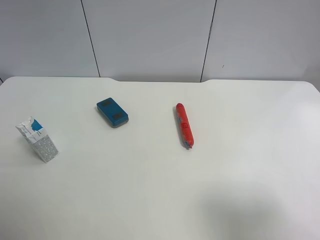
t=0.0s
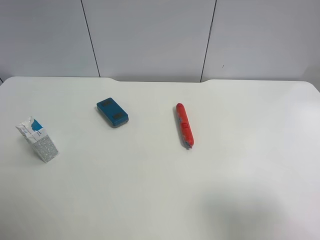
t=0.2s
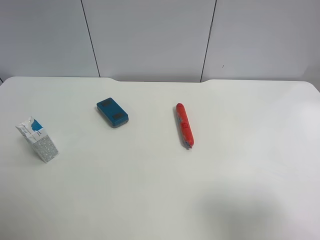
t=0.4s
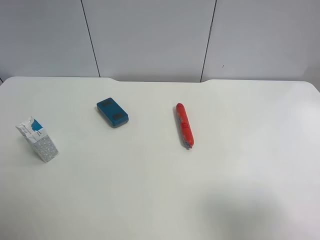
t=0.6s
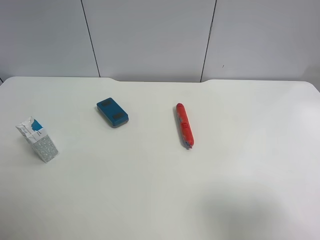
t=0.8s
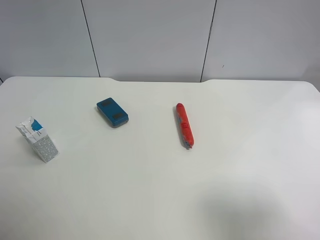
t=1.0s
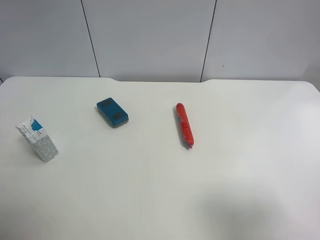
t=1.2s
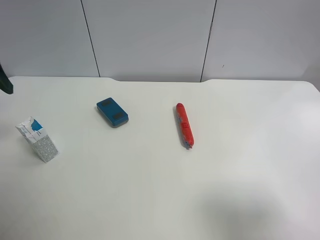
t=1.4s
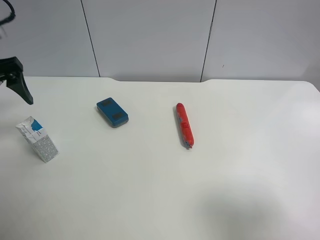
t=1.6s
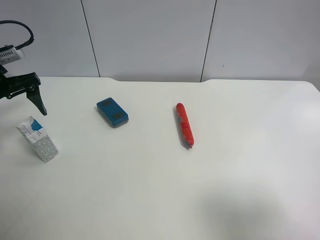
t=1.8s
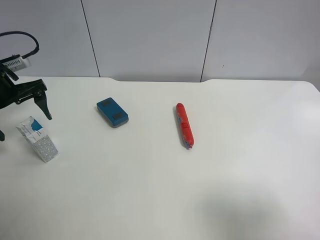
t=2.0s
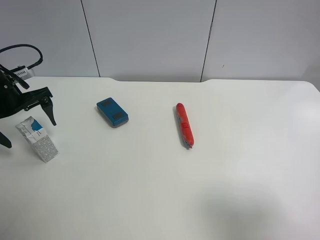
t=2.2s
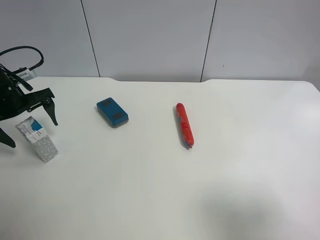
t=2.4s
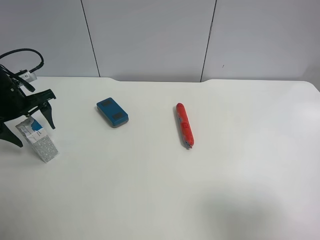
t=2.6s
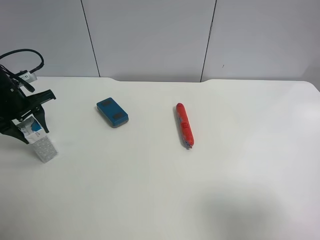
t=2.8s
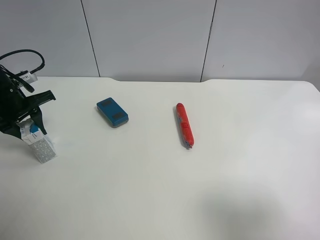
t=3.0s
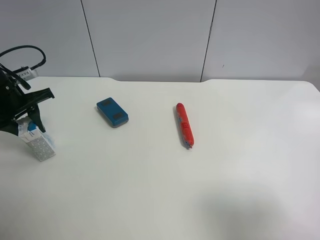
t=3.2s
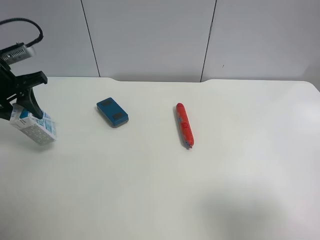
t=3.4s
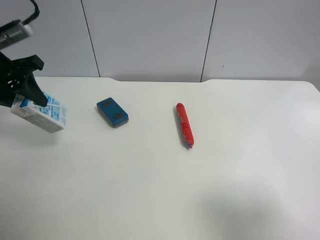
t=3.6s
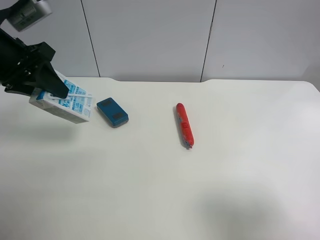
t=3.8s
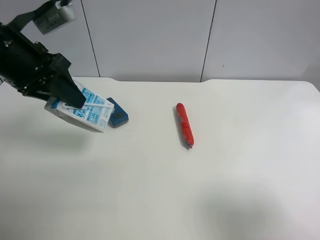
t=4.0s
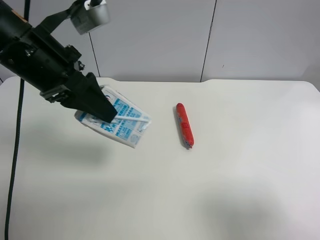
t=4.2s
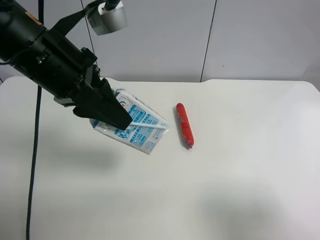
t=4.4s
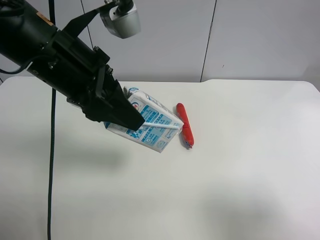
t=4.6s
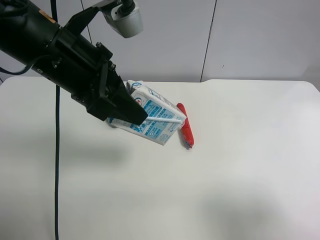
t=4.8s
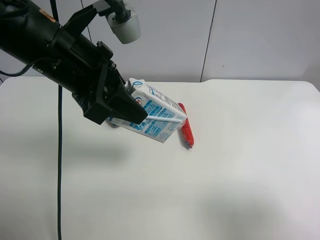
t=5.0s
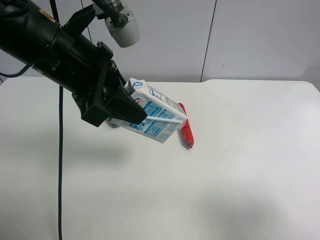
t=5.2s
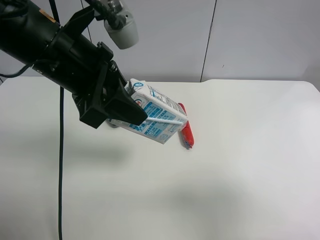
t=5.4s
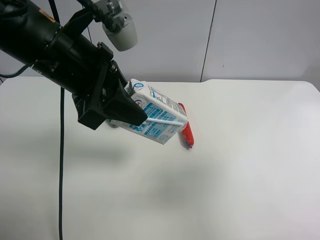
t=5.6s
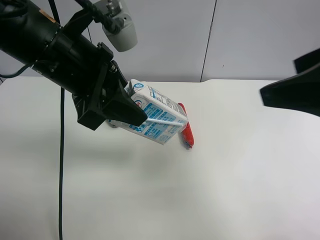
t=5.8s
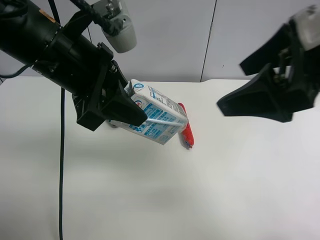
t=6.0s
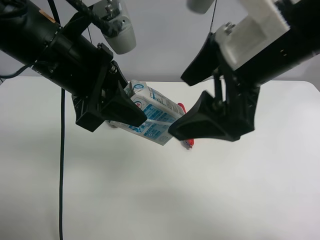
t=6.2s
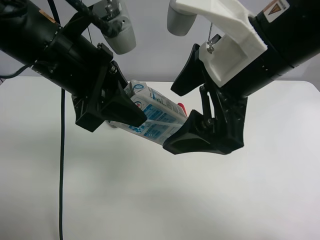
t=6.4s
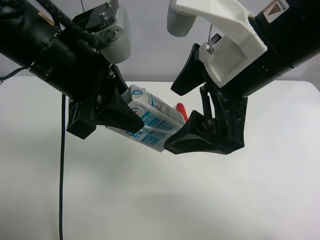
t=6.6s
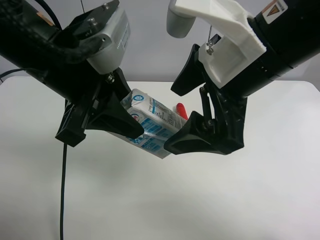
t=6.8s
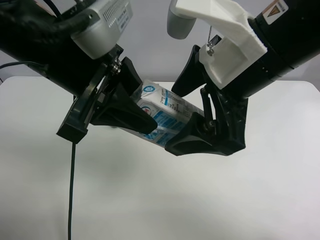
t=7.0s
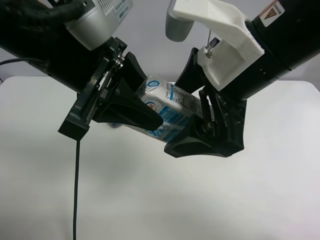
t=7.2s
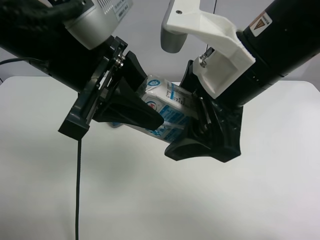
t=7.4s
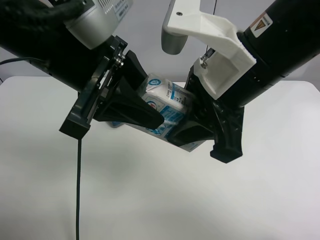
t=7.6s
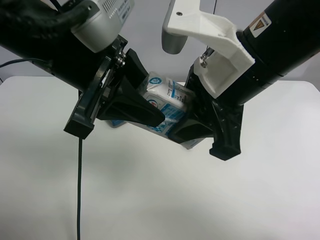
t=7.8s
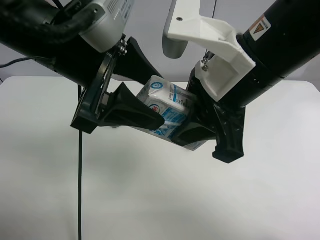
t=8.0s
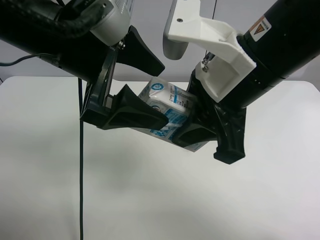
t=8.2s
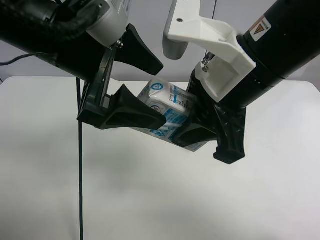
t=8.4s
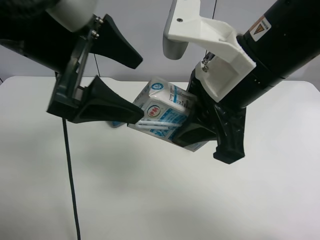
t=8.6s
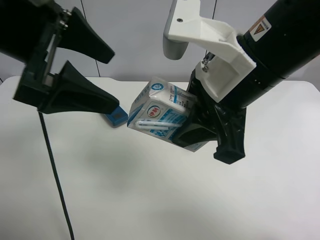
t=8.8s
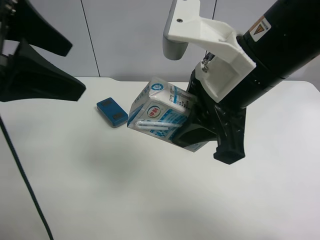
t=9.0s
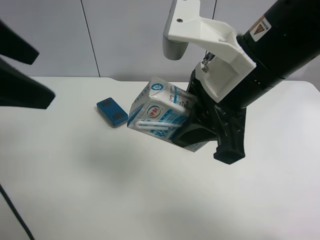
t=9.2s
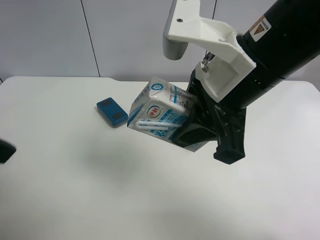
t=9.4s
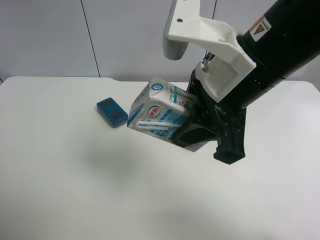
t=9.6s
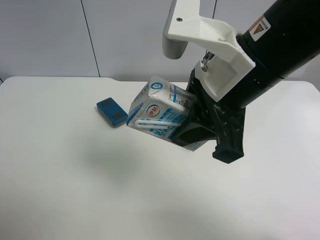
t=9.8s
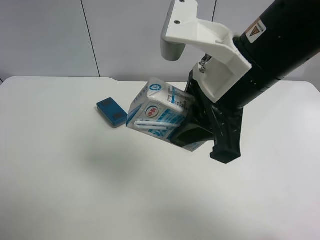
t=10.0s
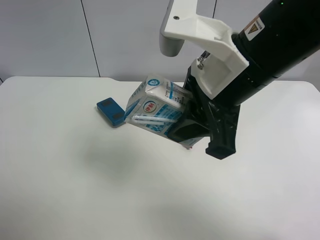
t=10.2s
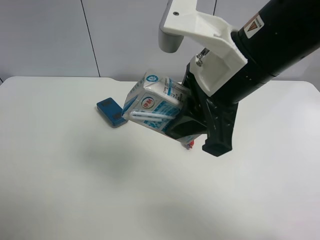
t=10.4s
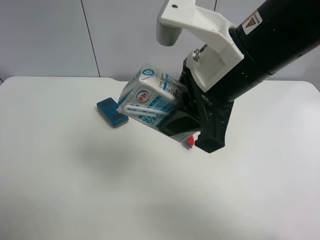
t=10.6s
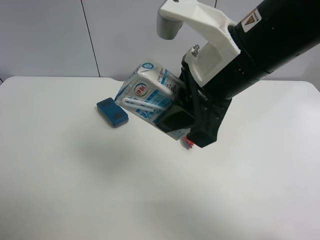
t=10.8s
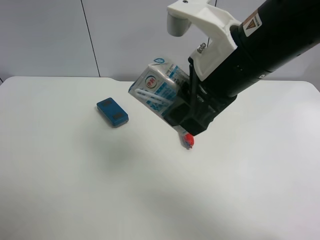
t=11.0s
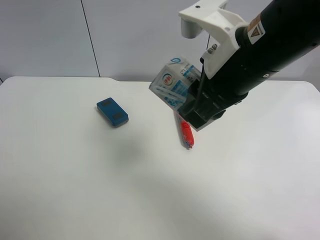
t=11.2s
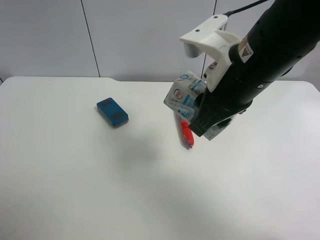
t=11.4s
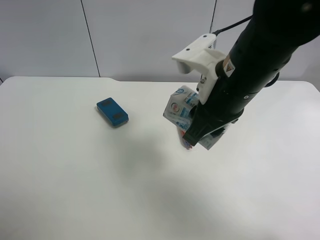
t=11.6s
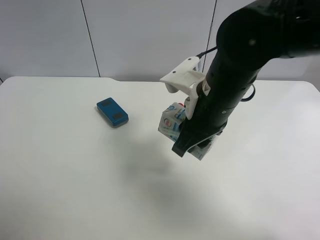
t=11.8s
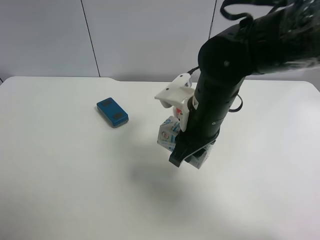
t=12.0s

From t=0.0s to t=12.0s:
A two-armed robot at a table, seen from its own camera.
Task of the whole recording: use the left gripper to pick up the item and transfer it from the left gripper to the right gripper.
From t=0.0s to t=1.6s: The left gripper goes approximately 30 cm forward.
From t=1.6s to t=3.0s: The left gripper travels downward by approximately 10 cm, and closes up.
From t=3.0s to t=4.4s: The left gripper goes roughly 25 cm to the right, upward and backward.
From t=4.4s to t=6.0s: The right gripper moves forward and to the left, approximately 20 cm.
From t=6.0s to t=7.6s: The right gripper moves to the left, roughly 5 cm, and closes.
From t=7.6s to t=9.0s: The left gripper moves to the left and upward, some 10 cm, and opens up.
From t=9.0s to t=10.4s: The left gripper shifts about 25 cm backward, to the left and downward.
From t=10.4s to t=12.0s: The right gripper travels downward and forward by roughly 15 cm.

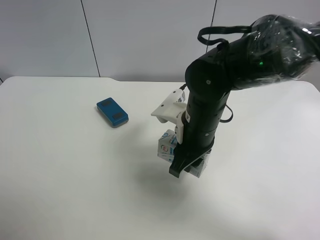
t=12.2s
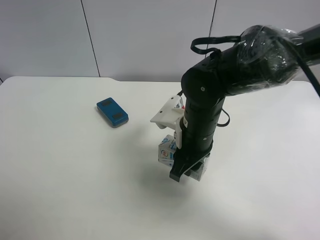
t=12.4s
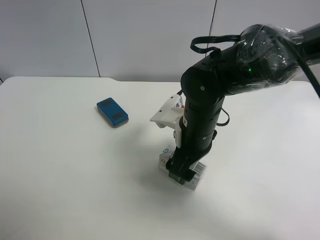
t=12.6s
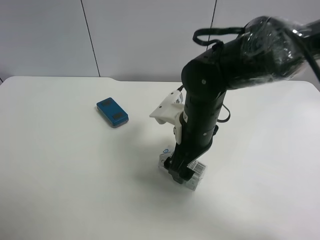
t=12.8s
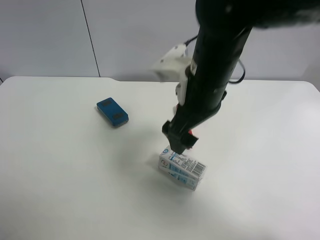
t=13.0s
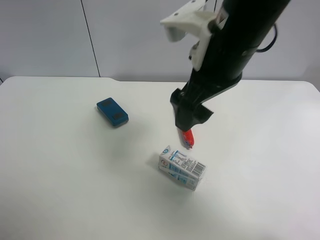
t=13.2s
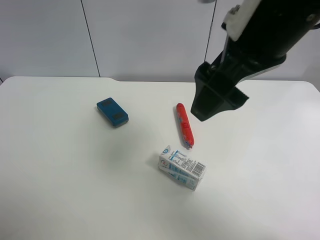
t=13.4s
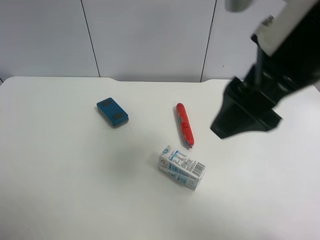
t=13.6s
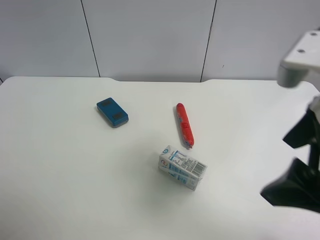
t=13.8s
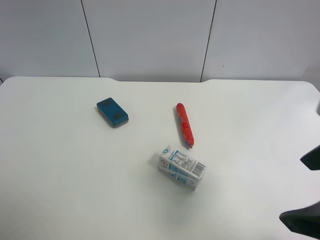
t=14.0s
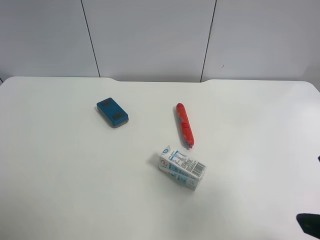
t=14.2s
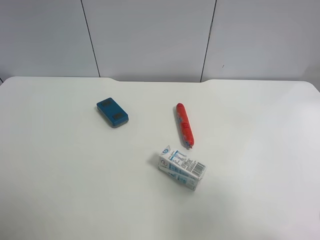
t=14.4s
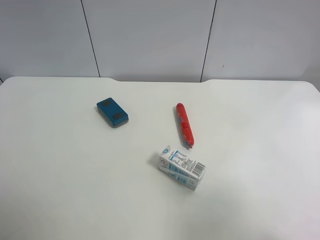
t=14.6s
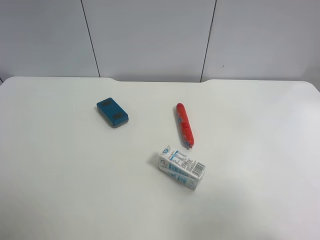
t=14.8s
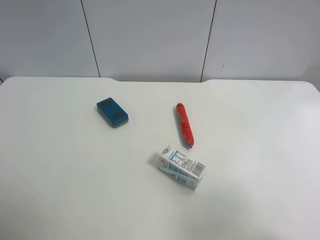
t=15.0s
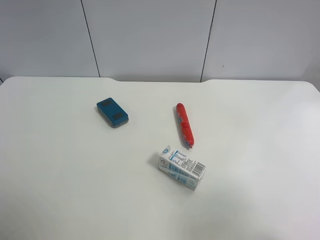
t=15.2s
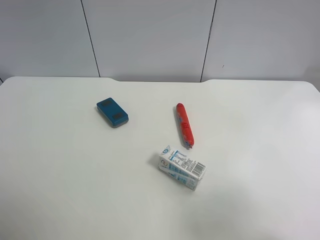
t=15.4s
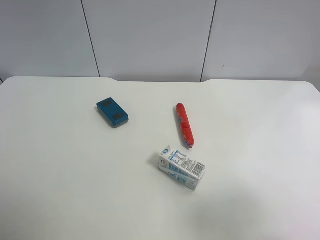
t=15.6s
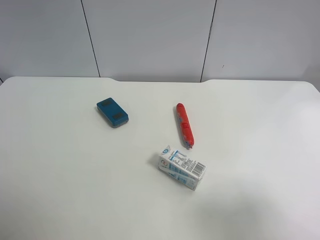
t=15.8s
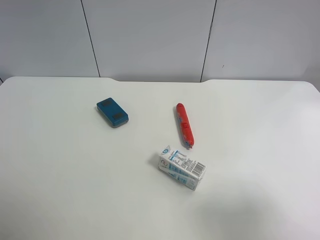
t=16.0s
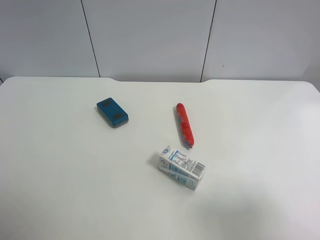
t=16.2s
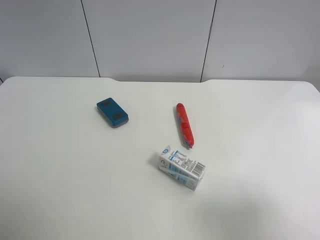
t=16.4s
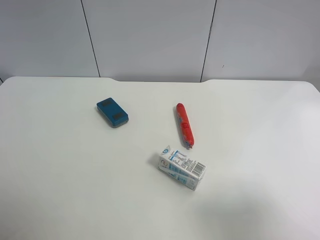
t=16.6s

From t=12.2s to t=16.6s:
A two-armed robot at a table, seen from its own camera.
Task of the whole recording: use the left gripper to pick up the item and transfer it from the left gripper to the right gripper.
From t=12.2s to t=13.6s: The right gripper heads upward and backward, covering roughly 20 cm, and opens its fingers.
From t=13.6s to t=15.2s: The right gripper is displaced to the right, backward and downward by approximately 20 cm.
